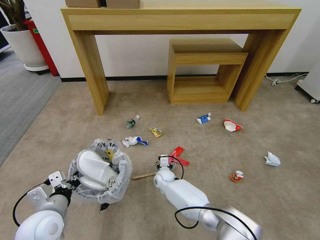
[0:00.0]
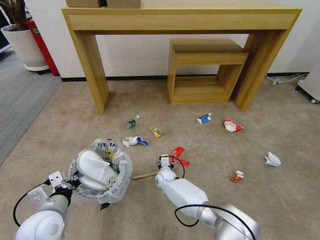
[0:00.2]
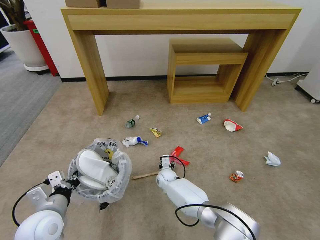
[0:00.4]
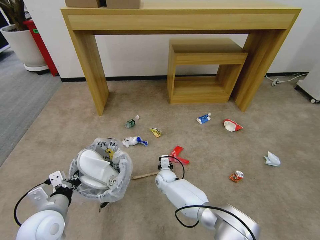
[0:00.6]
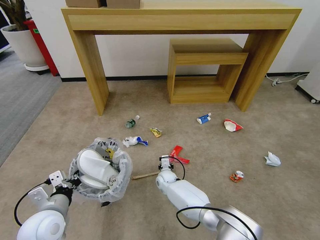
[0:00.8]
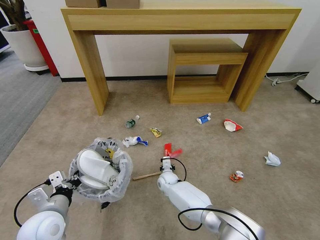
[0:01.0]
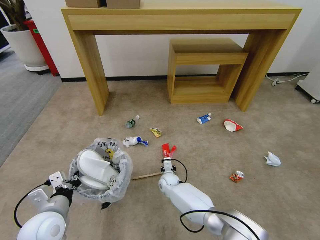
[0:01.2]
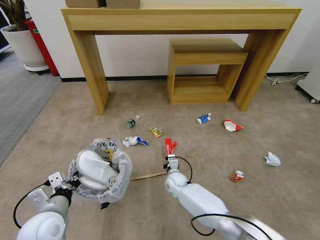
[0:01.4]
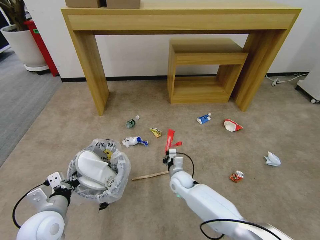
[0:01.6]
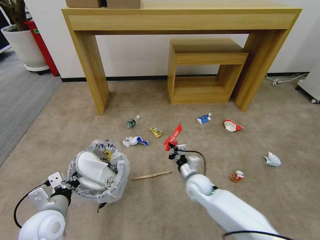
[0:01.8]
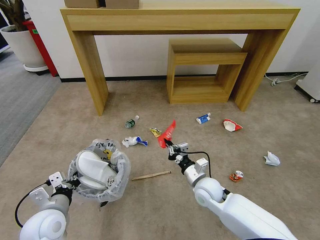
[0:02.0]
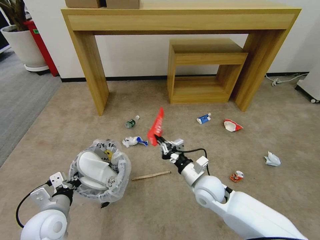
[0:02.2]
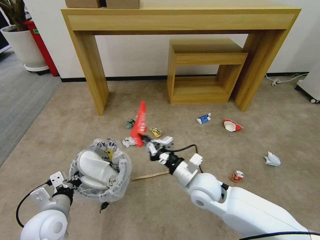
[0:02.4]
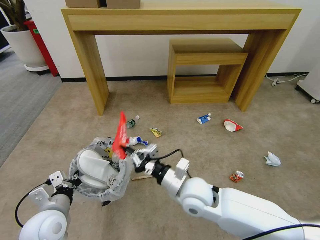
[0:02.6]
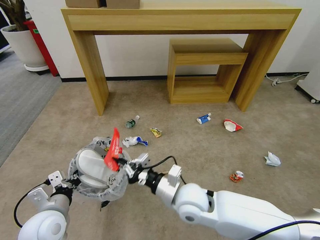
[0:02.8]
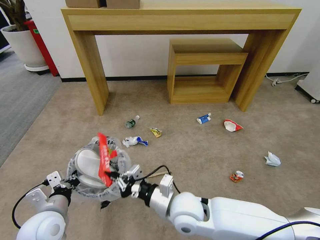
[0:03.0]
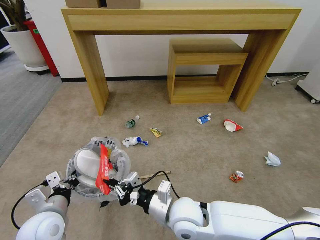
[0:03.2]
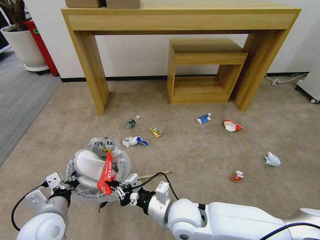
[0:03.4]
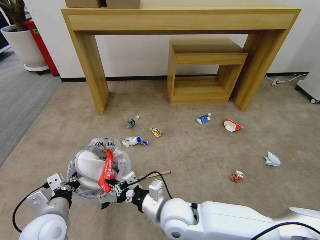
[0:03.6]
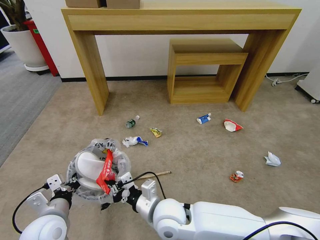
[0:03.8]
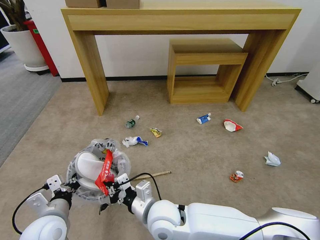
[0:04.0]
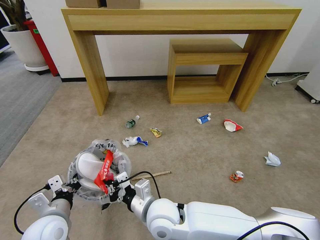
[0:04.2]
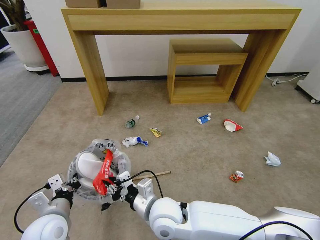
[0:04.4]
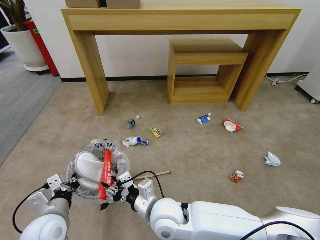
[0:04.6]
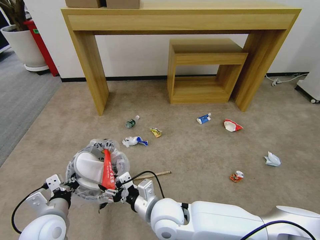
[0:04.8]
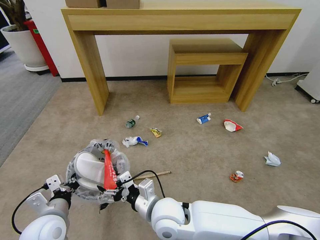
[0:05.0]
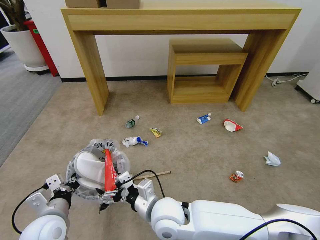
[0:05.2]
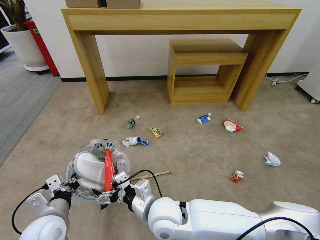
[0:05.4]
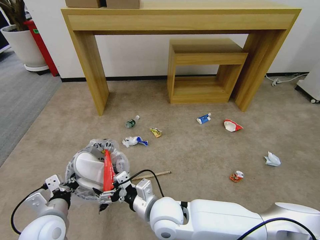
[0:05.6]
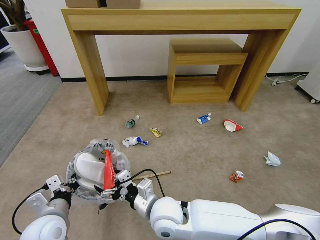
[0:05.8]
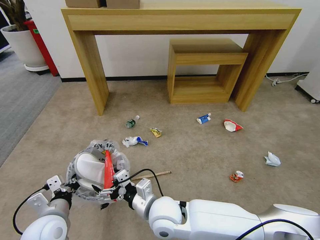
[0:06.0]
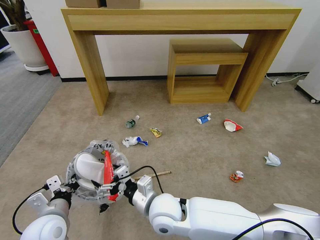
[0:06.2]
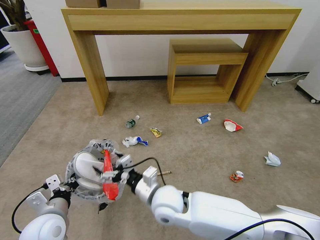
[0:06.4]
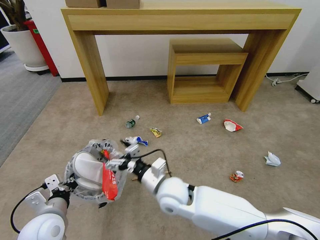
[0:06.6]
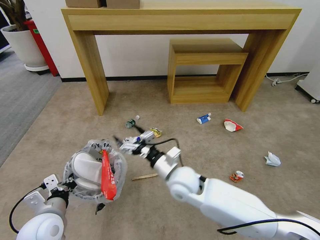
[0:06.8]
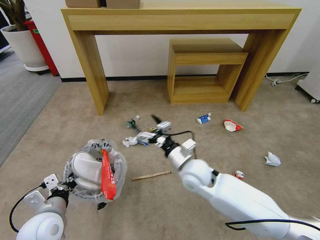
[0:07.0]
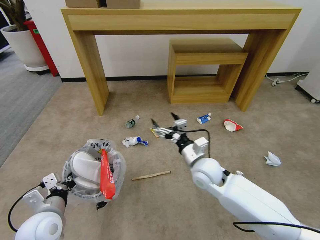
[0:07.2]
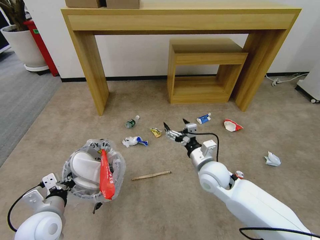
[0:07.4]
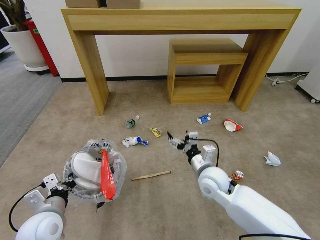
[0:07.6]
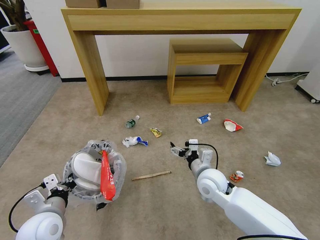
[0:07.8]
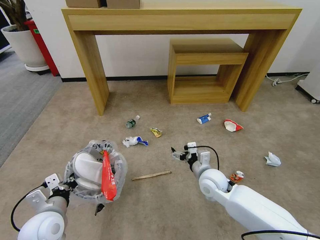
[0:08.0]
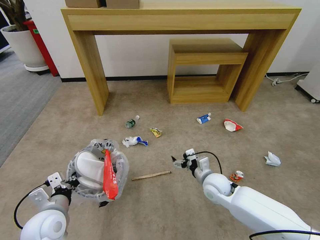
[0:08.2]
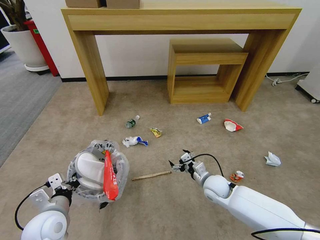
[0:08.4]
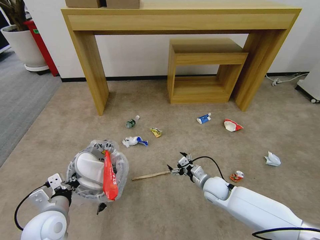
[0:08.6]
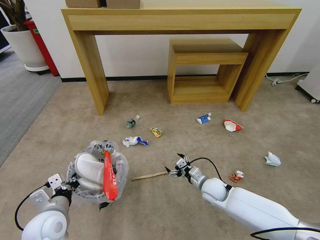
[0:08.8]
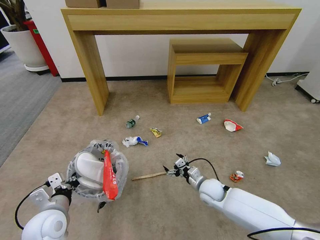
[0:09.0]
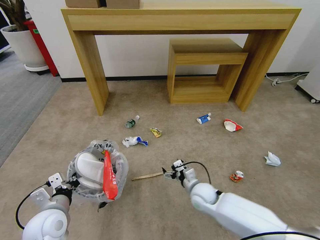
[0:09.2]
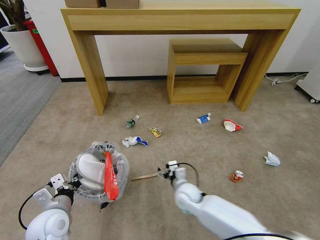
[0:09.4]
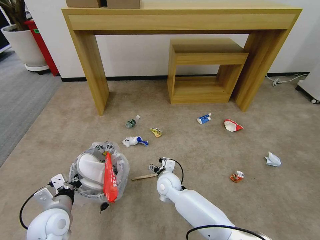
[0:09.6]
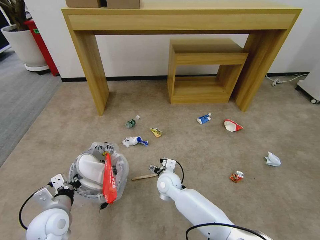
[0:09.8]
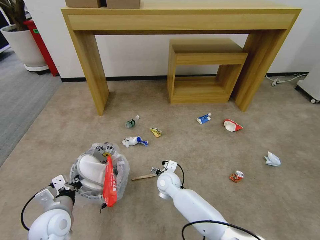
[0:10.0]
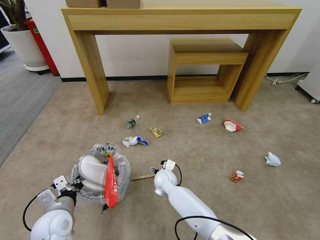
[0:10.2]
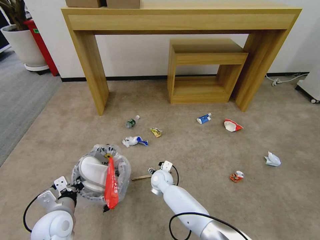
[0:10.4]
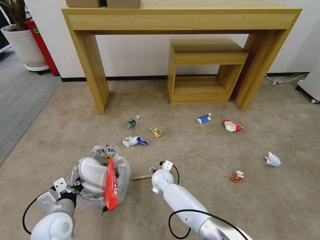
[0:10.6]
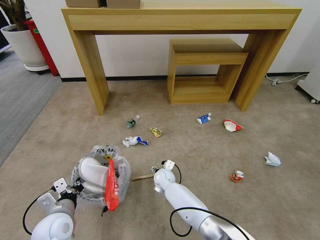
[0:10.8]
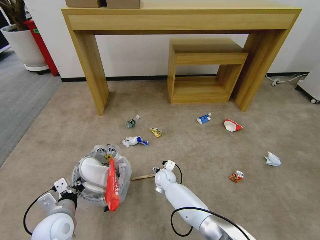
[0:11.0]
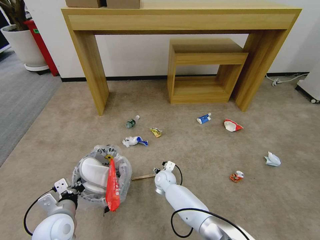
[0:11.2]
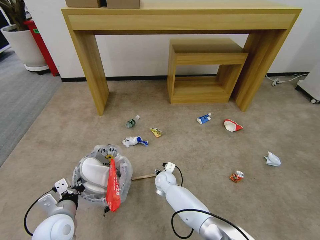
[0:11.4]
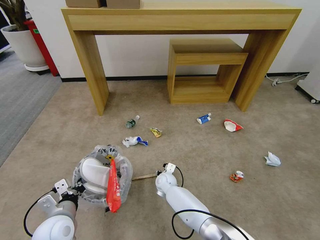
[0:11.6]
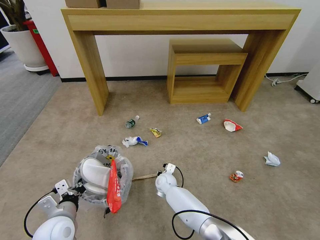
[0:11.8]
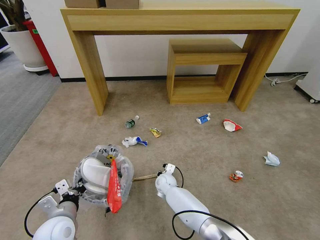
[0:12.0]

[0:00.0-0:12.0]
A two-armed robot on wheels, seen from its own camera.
Task of the whole recording: Pick up the trash bin and place the garbage on the floor into it.
0:00.0 to 0:01.6: The right gripper is displaced to the right by roughly 5 cm, and closes its fingers.
0:01.6 to 0:03.0: The right gripper moves upward and backward, roughly 25 cm.
0:03.0 to 0:04.4: The right gripper is displaced to the left by about 5 cm.
0:04.4 to 0:06.0: The right gripper opens its fingers.
0:06.0 to 0:07.6: The right gripper goes approximately 20 cm to the right and forward.
0:07.6 to 0:09.0: The right gripper is displaced downward by some 15 cm.
0:09.0 to 0:10.4: The right gripper moves to the left, some 20 cm.
0:10.4 to 0:12.0: The right gripper ends up roughly 5 cm from where it was, and closes.

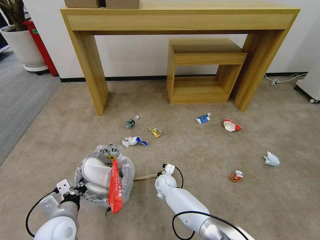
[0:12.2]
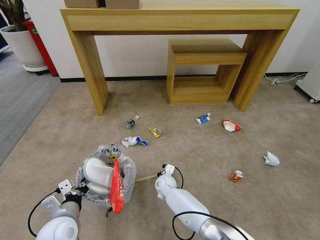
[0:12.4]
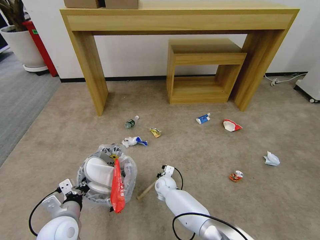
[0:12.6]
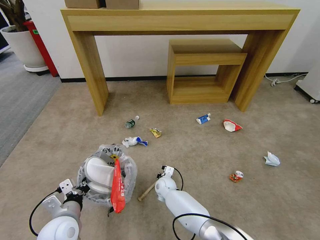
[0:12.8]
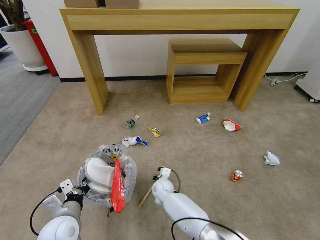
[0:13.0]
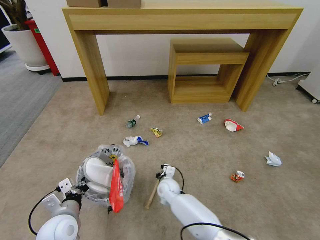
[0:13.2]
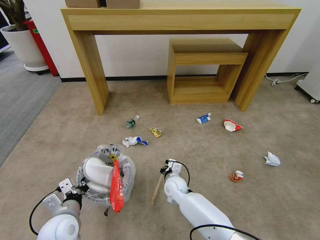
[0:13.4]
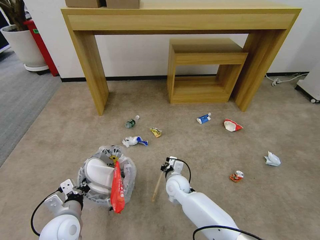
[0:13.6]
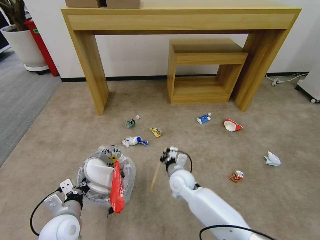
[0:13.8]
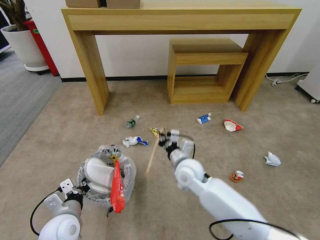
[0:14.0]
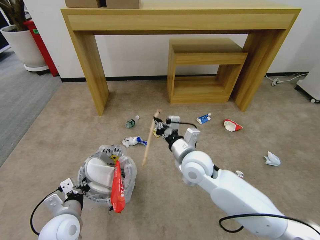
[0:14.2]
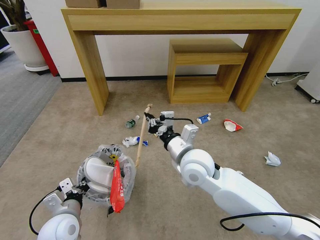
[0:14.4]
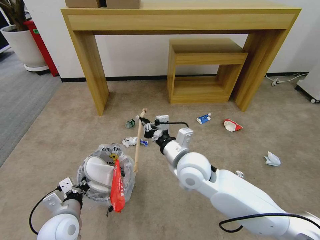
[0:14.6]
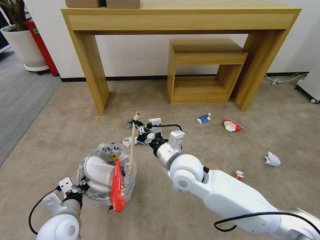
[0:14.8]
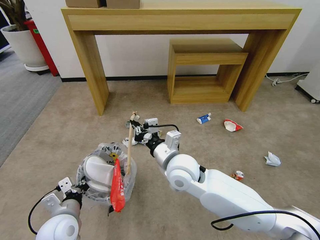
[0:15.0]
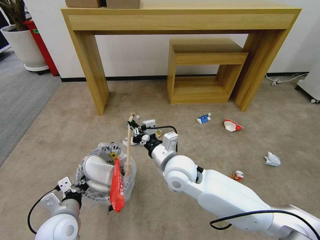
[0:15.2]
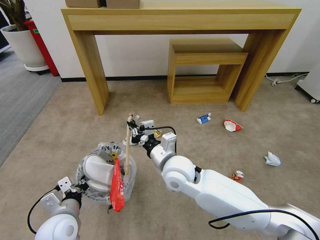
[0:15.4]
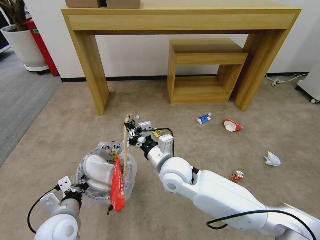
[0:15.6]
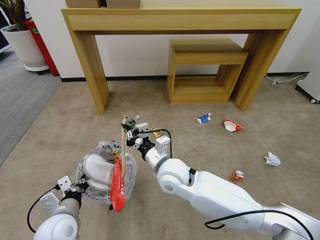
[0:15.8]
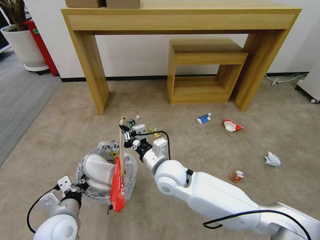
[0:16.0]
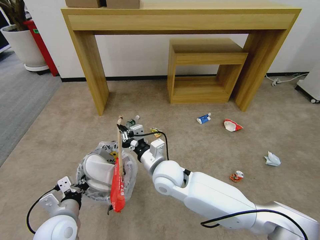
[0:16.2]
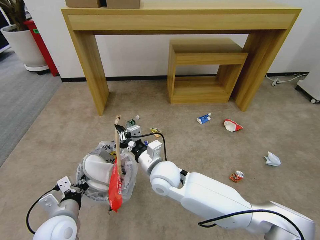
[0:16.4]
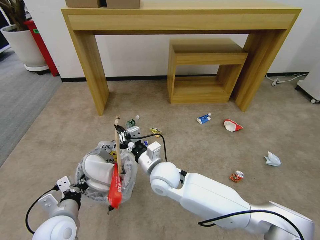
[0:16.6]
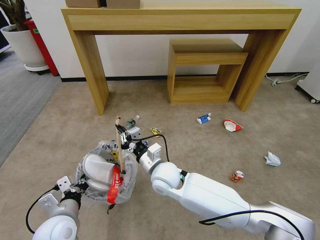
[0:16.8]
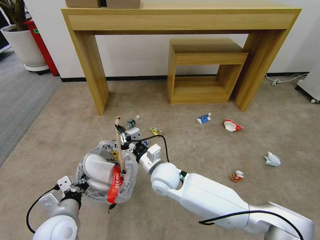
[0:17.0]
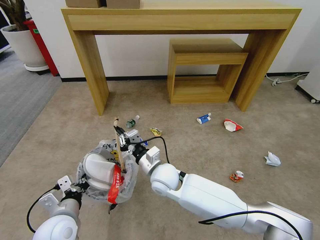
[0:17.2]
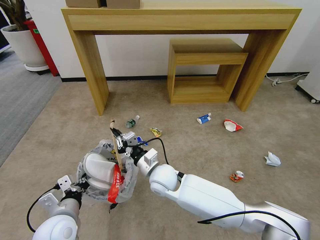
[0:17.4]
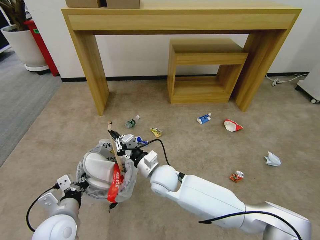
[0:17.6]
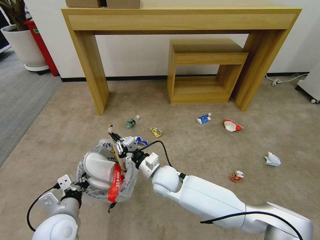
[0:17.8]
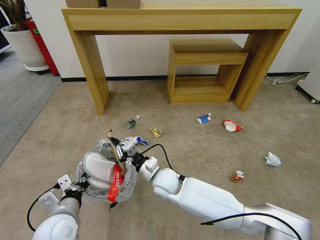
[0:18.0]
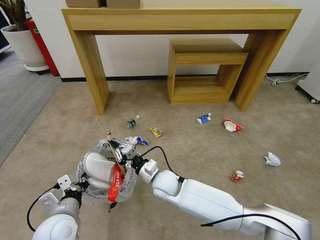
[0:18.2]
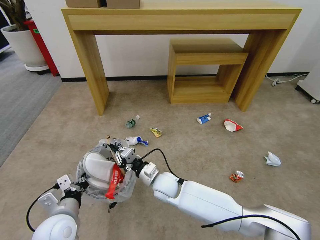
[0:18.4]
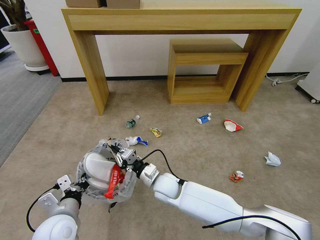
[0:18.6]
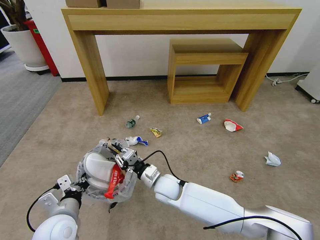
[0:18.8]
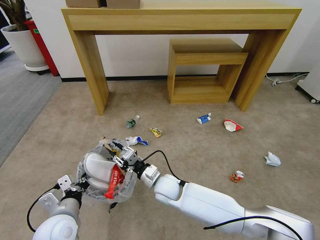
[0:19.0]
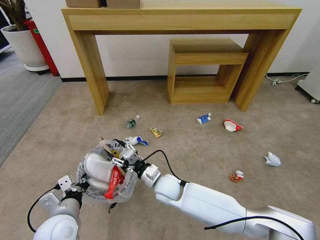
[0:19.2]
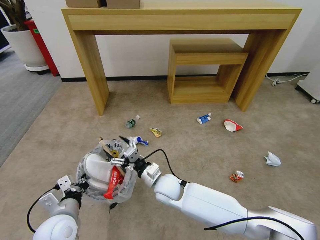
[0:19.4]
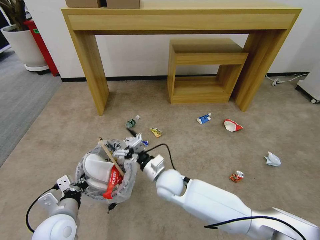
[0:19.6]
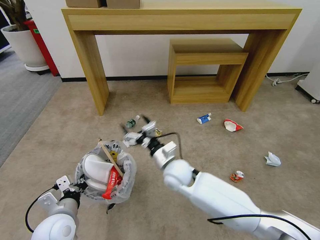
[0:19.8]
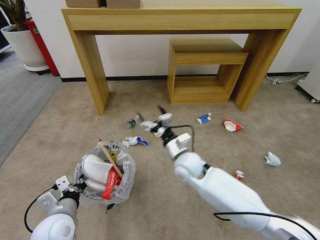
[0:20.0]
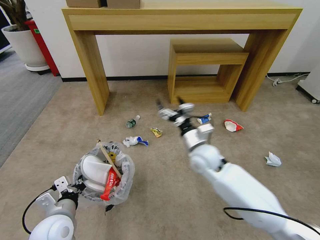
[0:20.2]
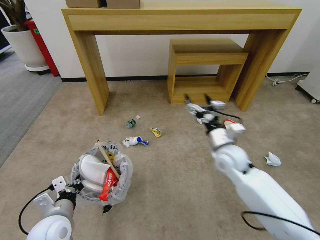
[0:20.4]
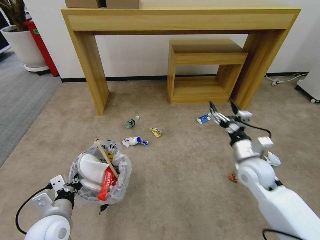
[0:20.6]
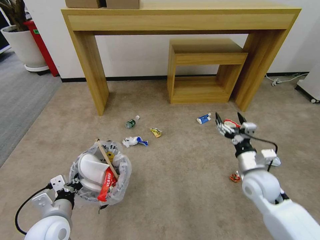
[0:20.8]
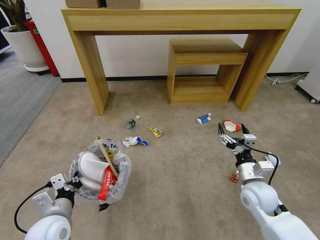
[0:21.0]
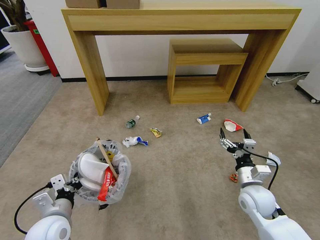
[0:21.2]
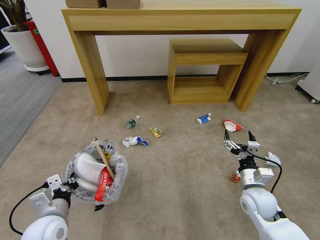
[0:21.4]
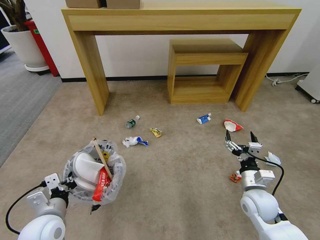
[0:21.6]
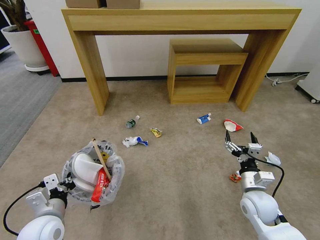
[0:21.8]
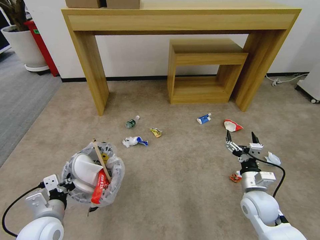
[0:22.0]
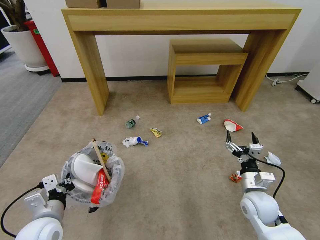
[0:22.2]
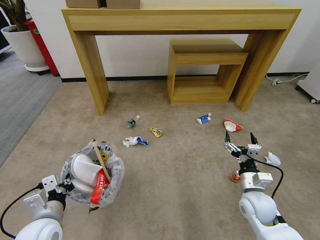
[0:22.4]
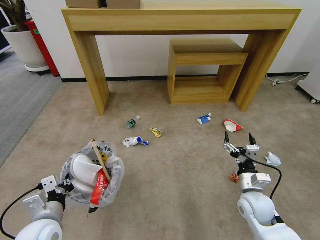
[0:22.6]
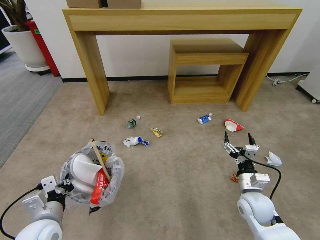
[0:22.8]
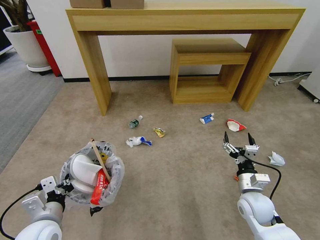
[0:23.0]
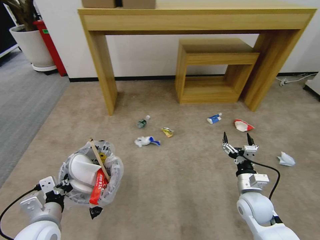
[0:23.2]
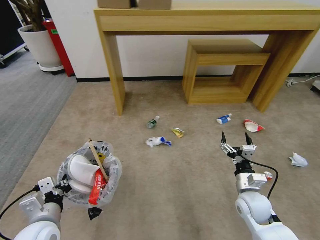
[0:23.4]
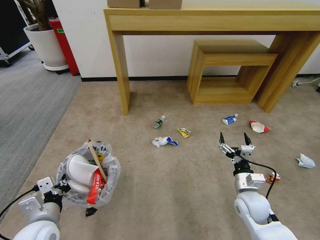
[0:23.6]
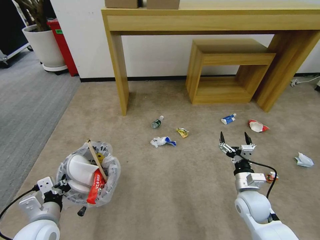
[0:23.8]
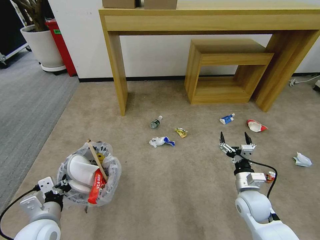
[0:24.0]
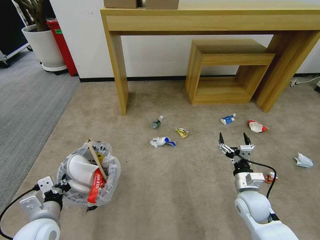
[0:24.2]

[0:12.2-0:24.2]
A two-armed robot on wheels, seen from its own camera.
Task of the whole recording: Pick up the trash bin and place the garbage on the floor into it.
0:12.2 to 0:13.8: The right gripper shifts about 15 cm upward and to the right, and closes up.
0:13.8 to 0:15.2: The right gripper travels upward by roughly 15 cm.
0:15.2 to 0:16.6: The right gripper moves downward, about 5 cm.
0:16.6 to 0:18.2: The right gripper shifts roughly 10 cm downward.
0:18.2 to 0:19.8: The right gripper ends up about 5 cm from where it was, and opens up.
0:19.8 to 0:21.2: The right gripper heads to the right, covering roughly 25 cm.
0:21.2 to 0:22.6: The grippers move only a little.
